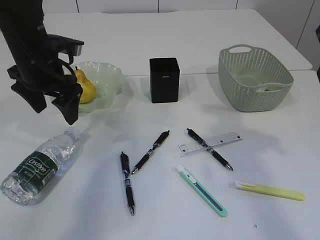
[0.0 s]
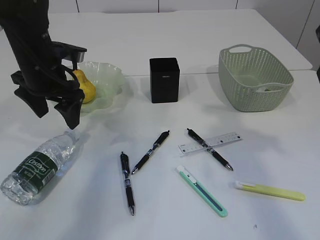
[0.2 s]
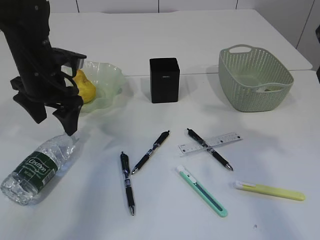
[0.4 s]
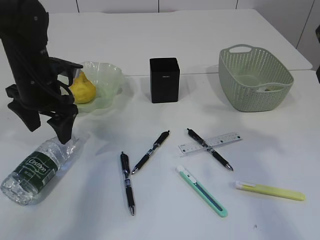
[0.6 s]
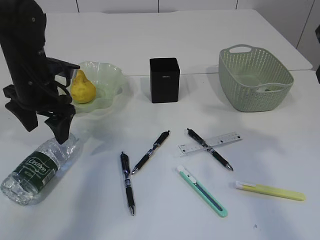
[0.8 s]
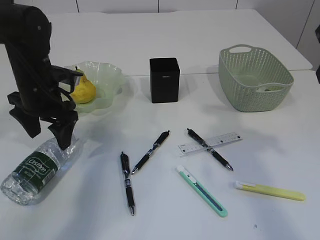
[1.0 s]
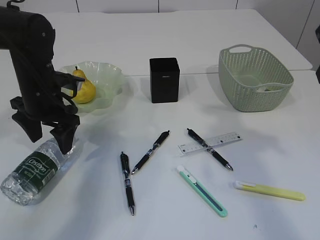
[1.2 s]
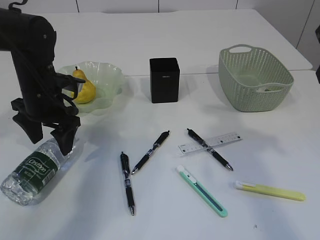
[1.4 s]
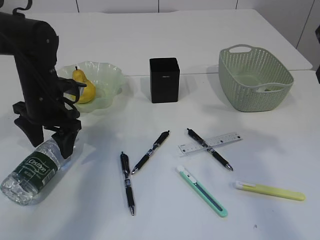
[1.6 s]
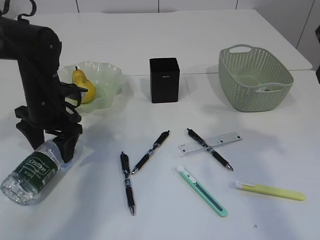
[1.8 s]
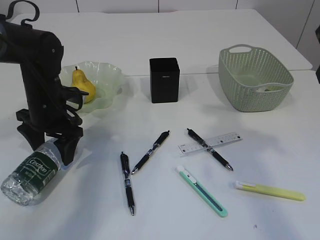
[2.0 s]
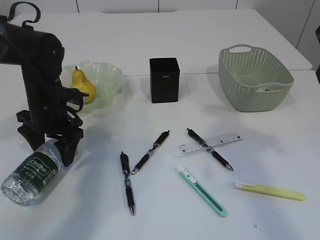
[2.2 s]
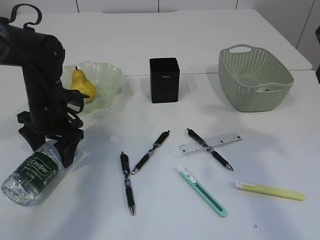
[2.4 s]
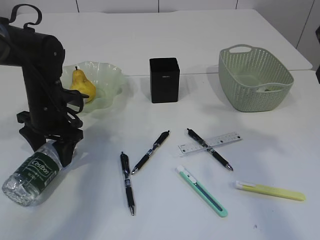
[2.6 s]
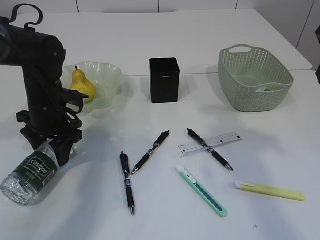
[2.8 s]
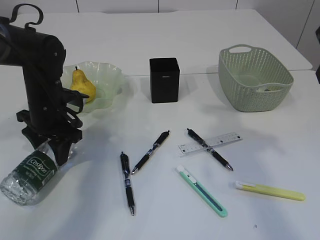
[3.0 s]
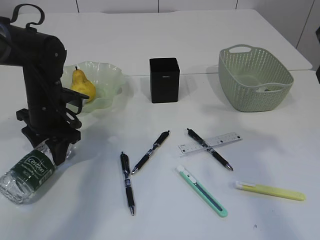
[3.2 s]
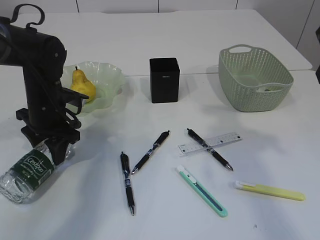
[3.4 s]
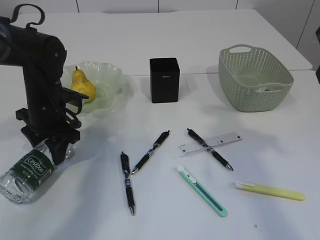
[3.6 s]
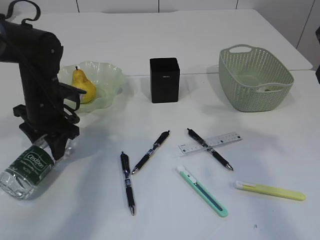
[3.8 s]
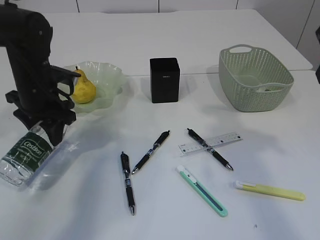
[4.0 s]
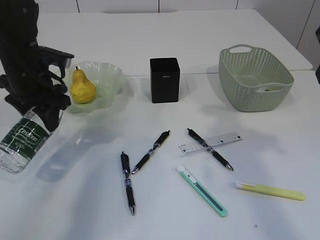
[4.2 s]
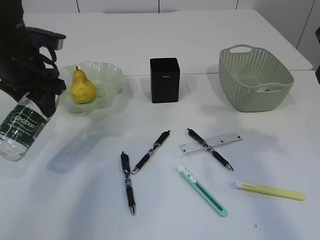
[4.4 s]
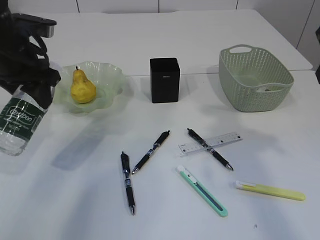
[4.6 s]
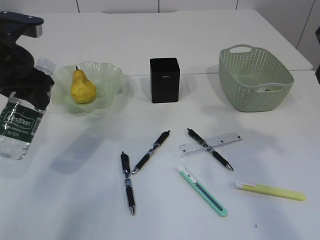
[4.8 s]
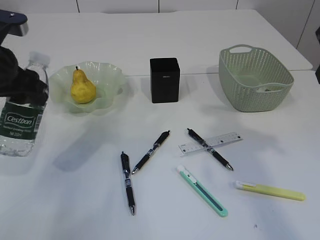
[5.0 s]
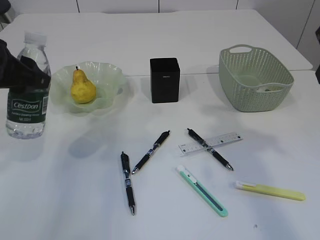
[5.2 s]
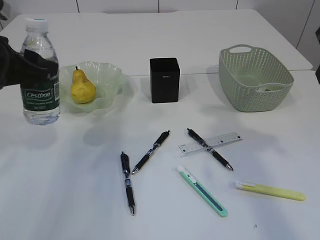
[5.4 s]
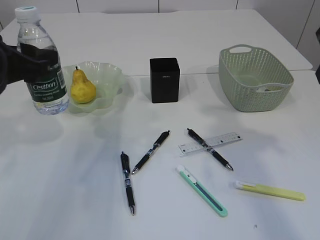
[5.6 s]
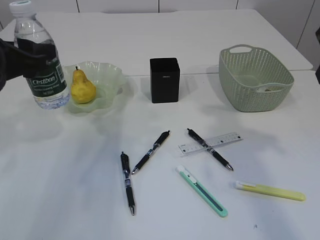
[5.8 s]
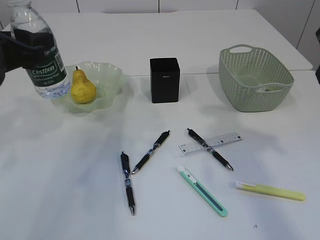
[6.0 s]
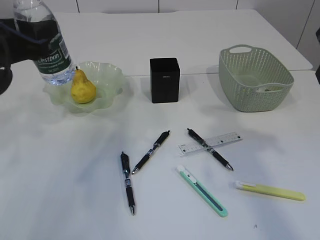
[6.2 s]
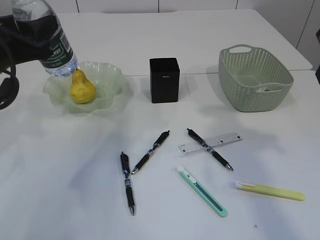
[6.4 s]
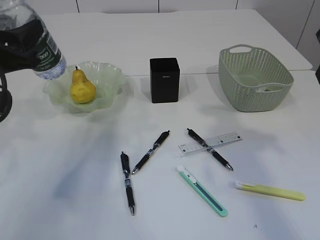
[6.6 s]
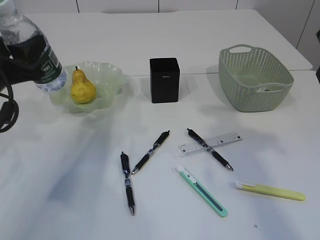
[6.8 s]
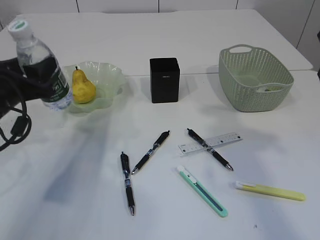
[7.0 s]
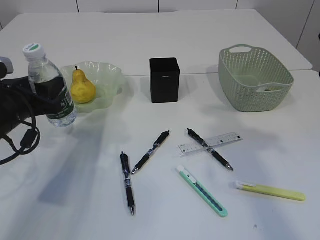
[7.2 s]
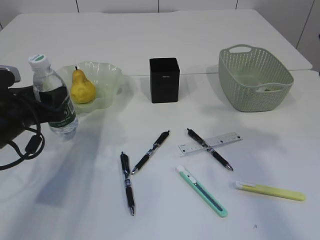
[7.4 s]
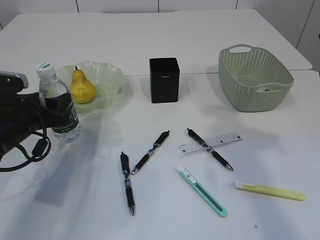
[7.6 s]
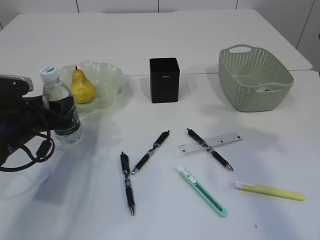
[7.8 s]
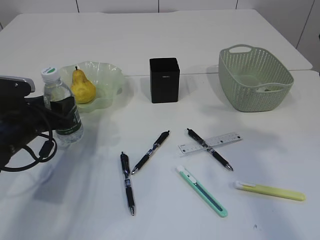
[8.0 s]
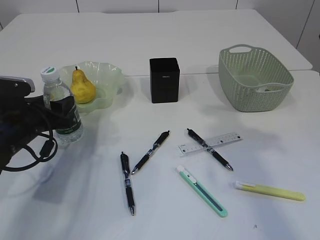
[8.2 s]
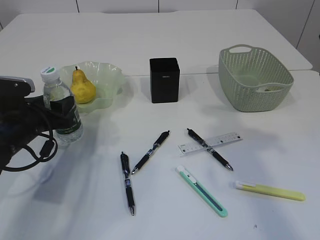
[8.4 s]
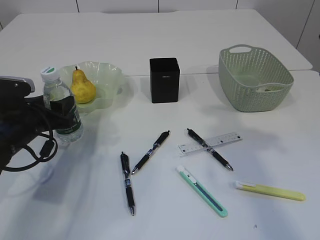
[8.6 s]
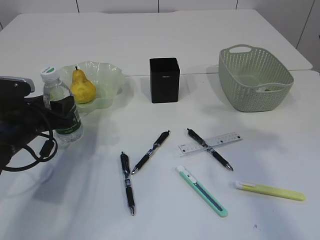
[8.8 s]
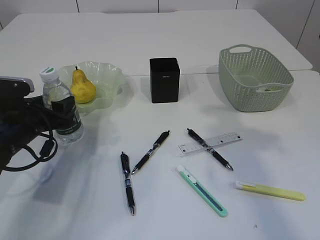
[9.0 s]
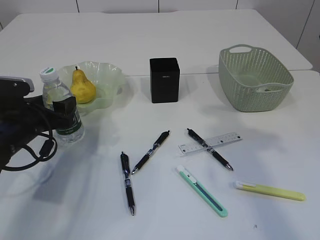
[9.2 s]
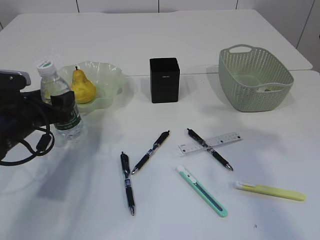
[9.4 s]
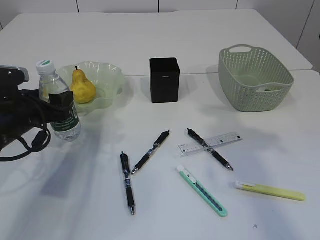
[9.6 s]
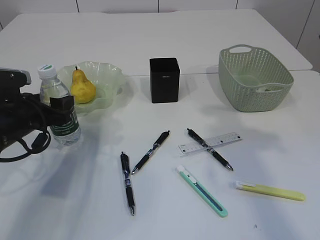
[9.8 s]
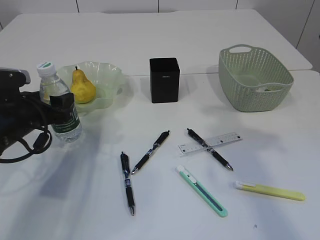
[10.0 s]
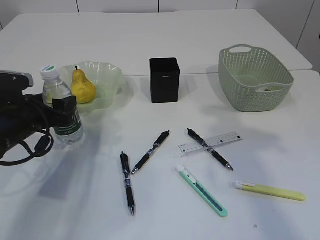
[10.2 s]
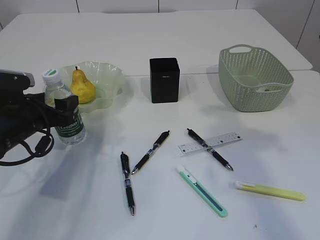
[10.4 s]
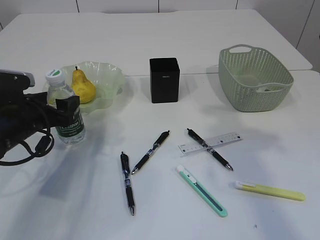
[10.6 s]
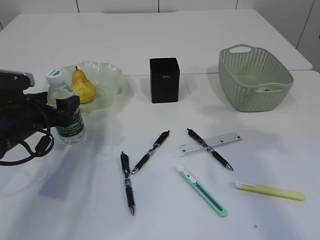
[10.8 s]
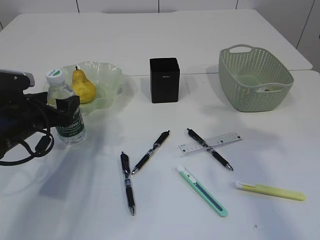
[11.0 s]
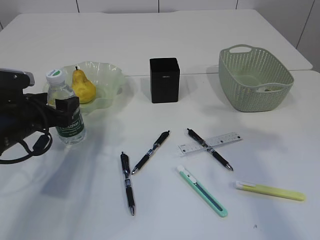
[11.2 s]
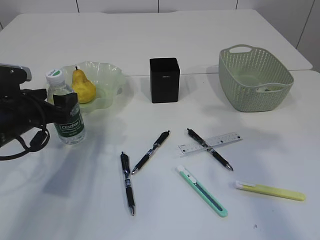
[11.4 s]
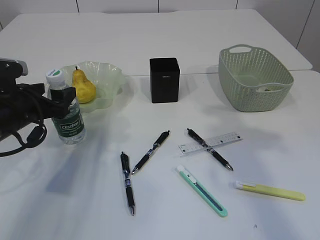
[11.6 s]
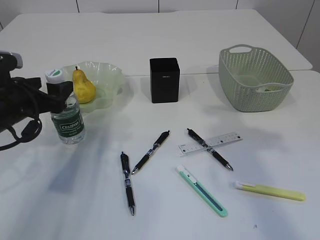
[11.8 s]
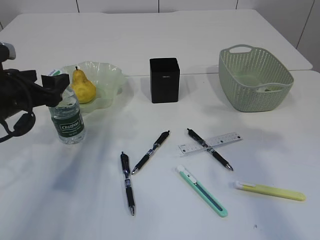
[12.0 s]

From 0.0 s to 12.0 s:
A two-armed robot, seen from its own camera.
Step, from 0.0 s to 4.0 s: Pick up the bottle with the left arm.
From 0.0 s to 1.6 s: The left gripper goes roughly 10 cm downward.
From 1.6 s to 3.0 s: The left gripper closes its fingers.
From 3.0 s to 4.4 s: The left gripper is displaced upward by about 10 cm.
From 4.4 s to 6.0 s: The left gripper moves backward, approximately 10 cm.
From 6.0 s to 7.6 s: The left gripper goes some 15 cm downward.
From 7.6 s to 10.4 s: The grippers stay close to where they were, moving slightly.
From 10.4 s to 12.0 s: The left gripper is displaced upward by some 5 cm.

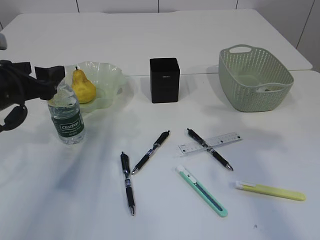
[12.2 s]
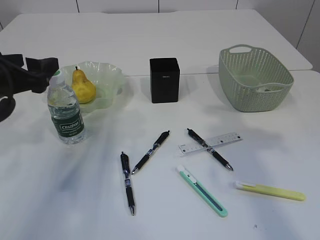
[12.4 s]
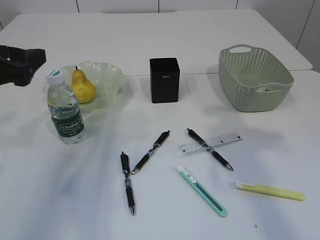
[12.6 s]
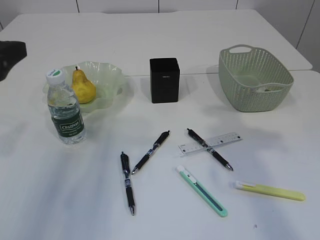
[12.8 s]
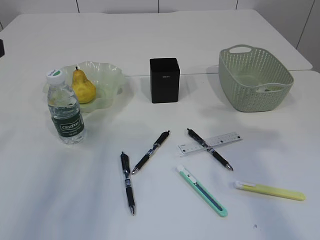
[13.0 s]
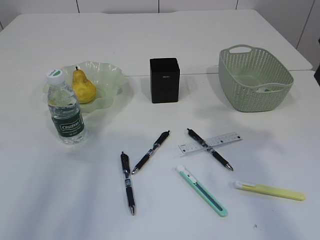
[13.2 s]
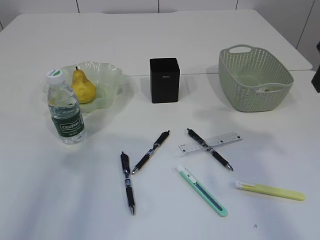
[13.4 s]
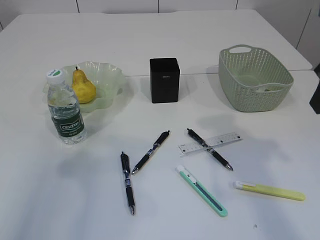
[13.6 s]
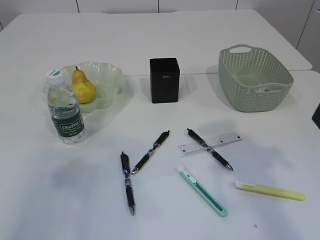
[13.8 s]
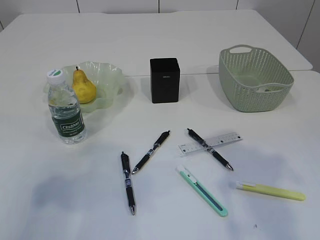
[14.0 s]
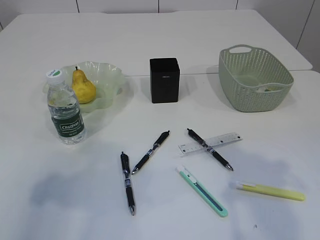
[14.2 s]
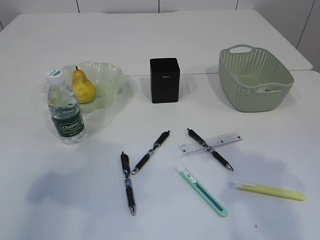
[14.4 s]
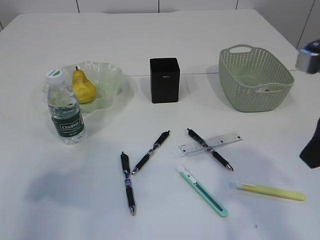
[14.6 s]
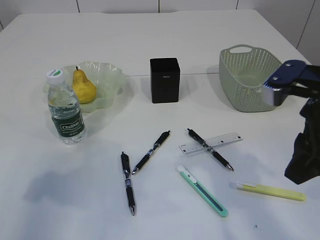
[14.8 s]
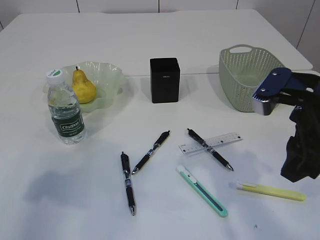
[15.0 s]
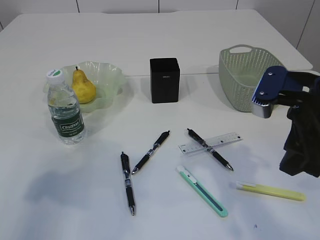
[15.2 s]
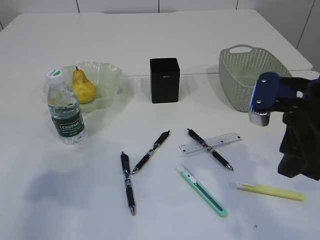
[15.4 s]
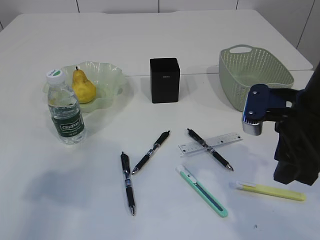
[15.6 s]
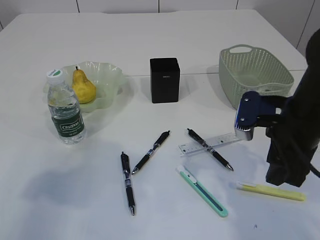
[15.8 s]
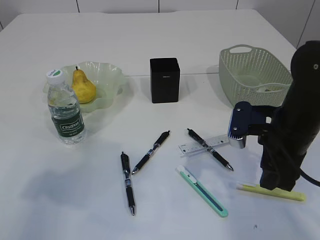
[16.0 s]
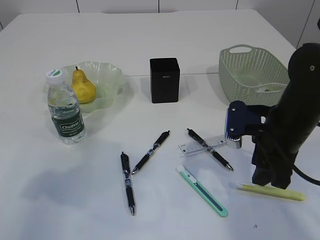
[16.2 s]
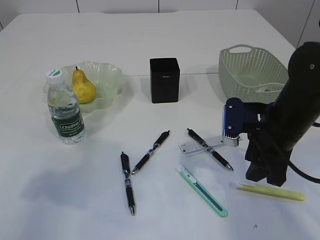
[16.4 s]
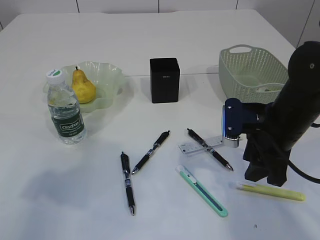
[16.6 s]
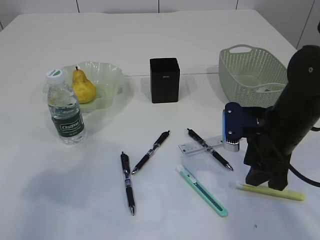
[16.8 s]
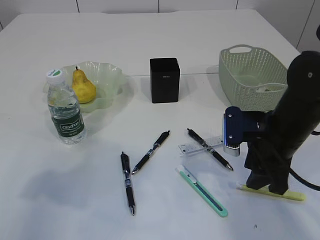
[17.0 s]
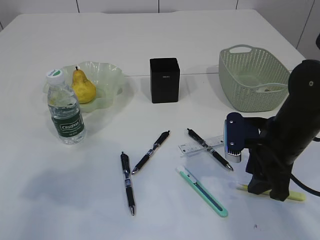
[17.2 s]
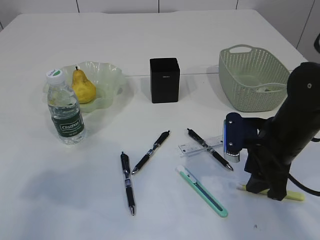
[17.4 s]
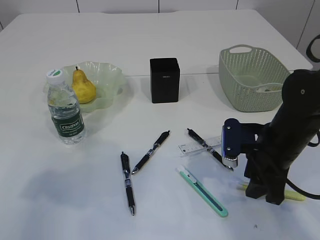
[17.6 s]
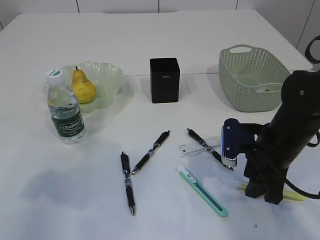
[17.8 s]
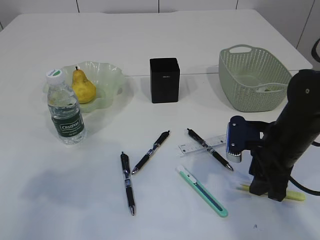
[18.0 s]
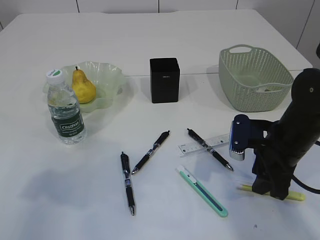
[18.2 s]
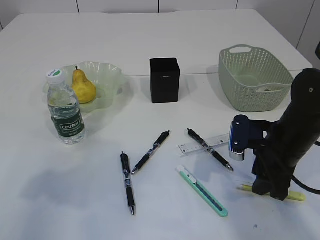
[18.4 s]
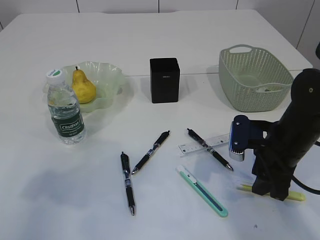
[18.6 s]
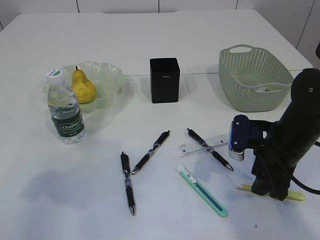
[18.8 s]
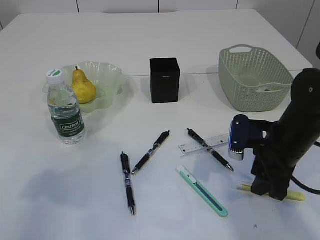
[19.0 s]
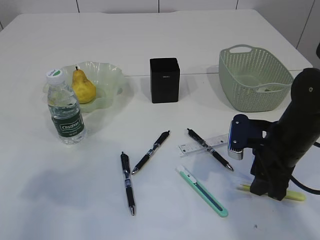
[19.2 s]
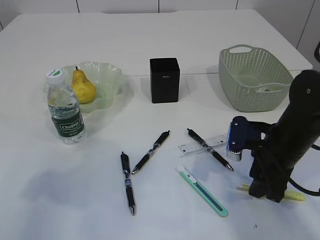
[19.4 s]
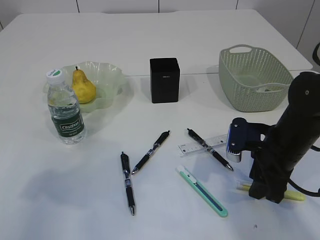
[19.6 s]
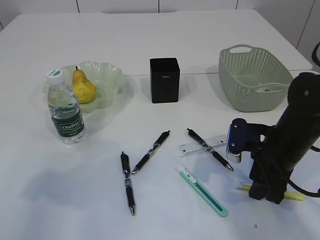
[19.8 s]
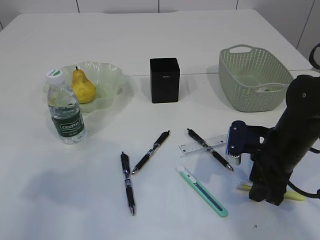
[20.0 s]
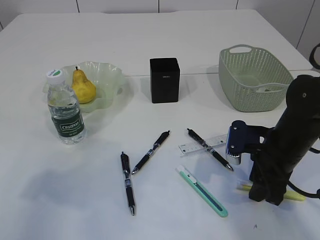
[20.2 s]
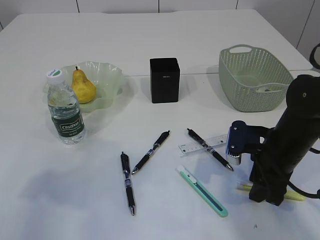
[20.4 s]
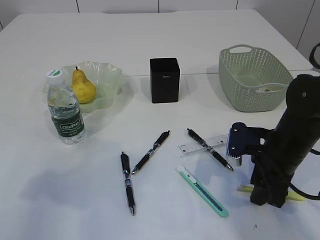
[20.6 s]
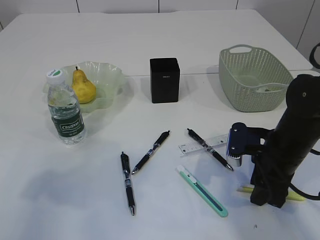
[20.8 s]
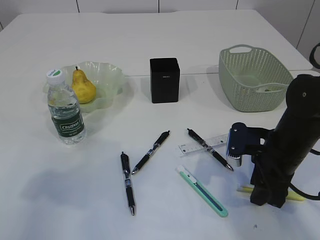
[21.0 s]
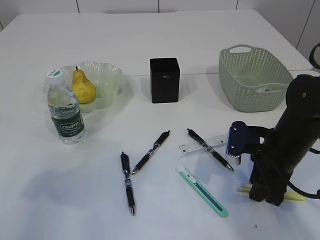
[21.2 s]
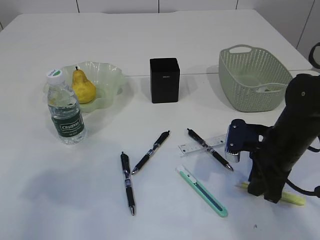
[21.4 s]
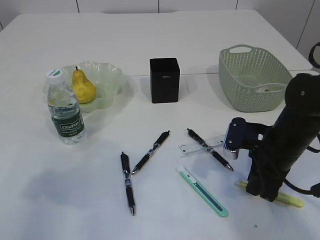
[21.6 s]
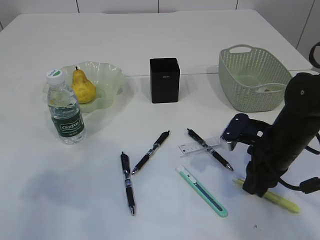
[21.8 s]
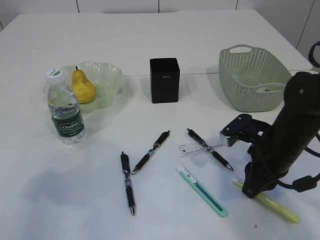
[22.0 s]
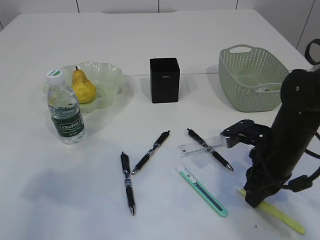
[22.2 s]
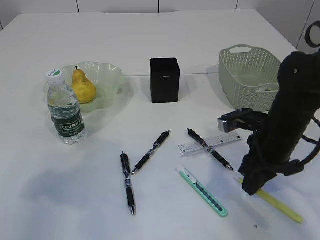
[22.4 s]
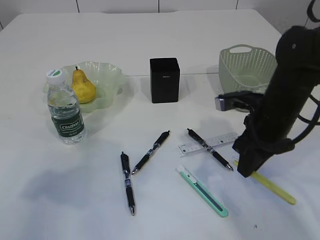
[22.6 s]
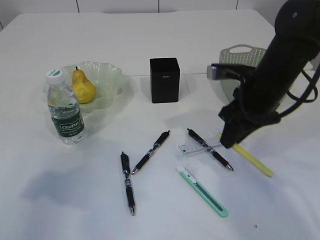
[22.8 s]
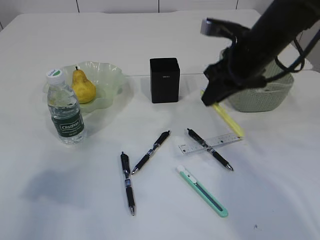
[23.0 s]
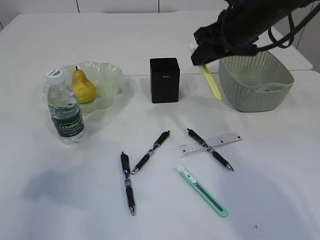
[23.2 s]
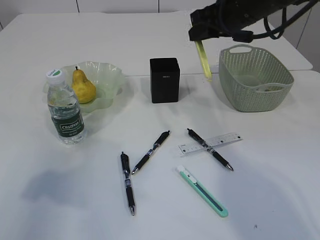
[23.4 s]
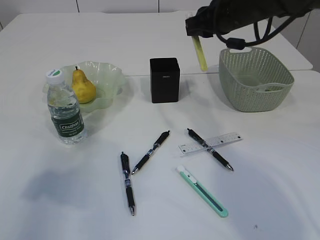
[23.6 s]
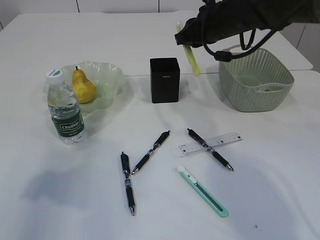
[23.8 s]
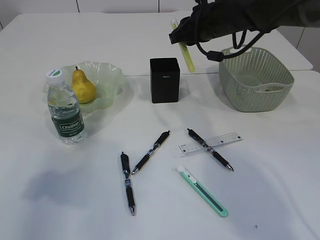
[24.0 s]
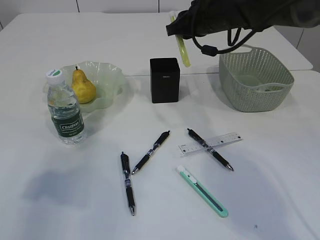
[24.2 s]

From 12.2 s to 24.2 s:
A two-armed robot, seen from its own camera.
Step, from 12.6 s to 22.4 s: pick up the yellow knife.
From 12.2 s to 13.8 s: The left gripper goes about 20 cm backward and upward.
From 13.8 s to 15.2 s: The right gripper is displaced downward by some 5 cm.
From 15.2 s to 16.6 s: The right gripper travels downward by approximately 10 cm.
From 16.6 s to 18.2 s: There are only small adjustments of the grippers.
From 18.2 s to 19.8 s: Both grippers stay about where they are.
From 19.8 s to 21.2 s: Both grippers stay about where they are.
From 21.2 s to 22.6 s: The right gripper changes place by about 5 cm, and closes its fingers.
From 22.6 s to 24.2 s: The right gripper goes approximately 20 cm forward and upward.
